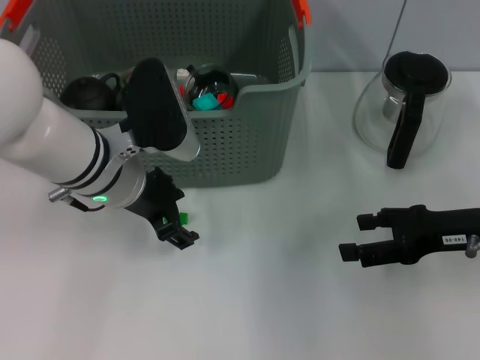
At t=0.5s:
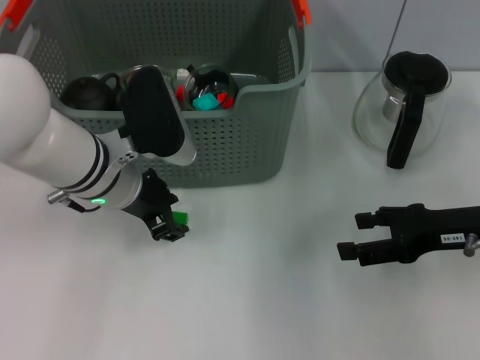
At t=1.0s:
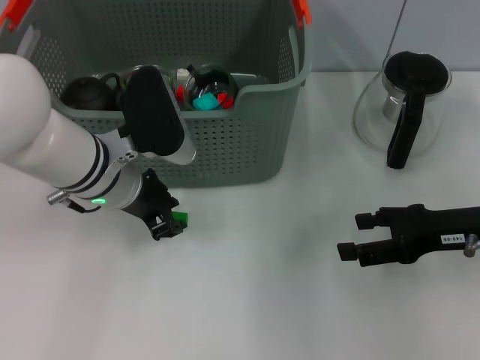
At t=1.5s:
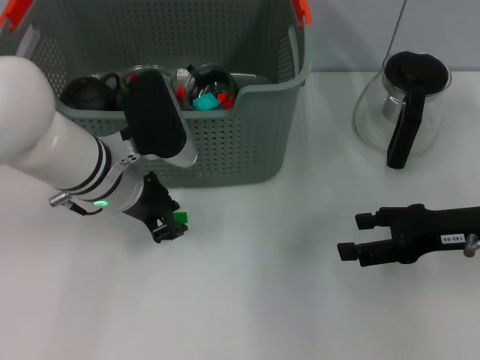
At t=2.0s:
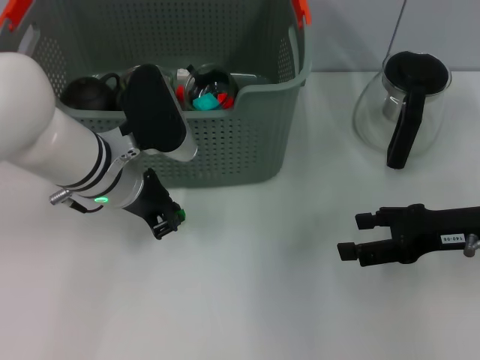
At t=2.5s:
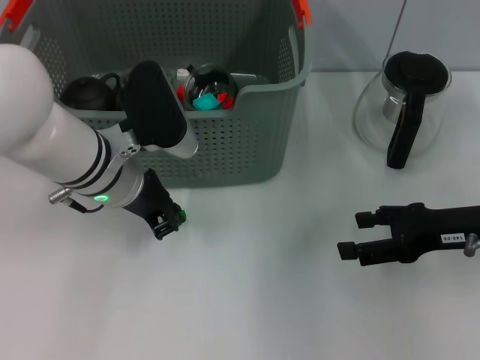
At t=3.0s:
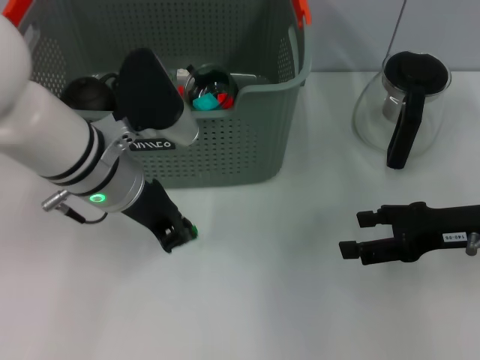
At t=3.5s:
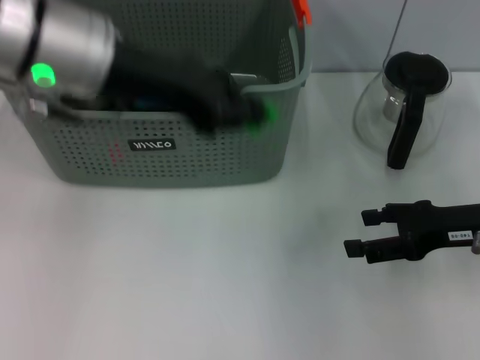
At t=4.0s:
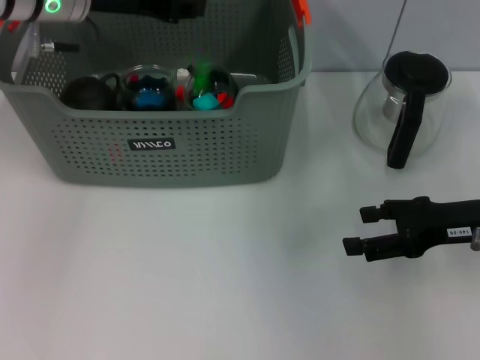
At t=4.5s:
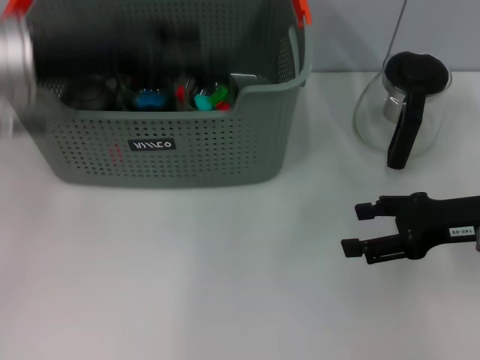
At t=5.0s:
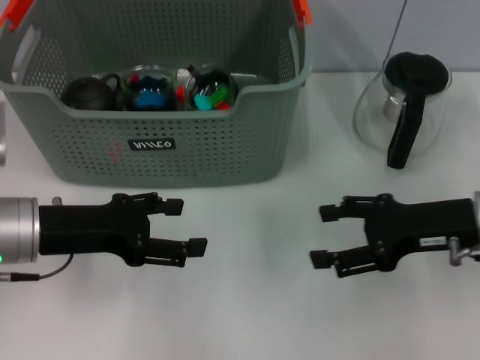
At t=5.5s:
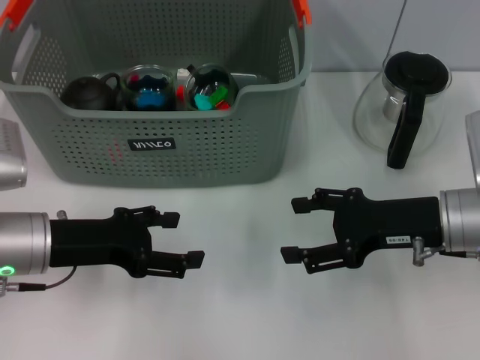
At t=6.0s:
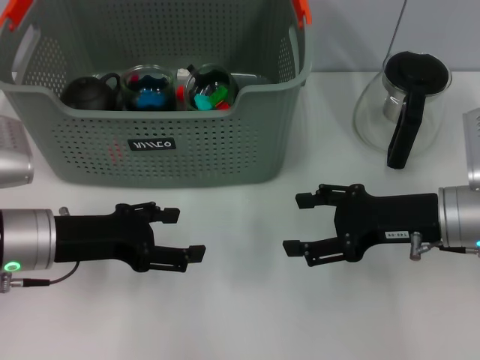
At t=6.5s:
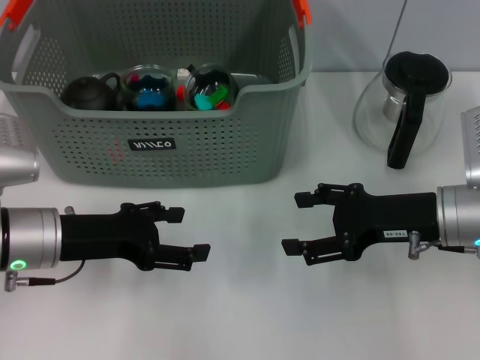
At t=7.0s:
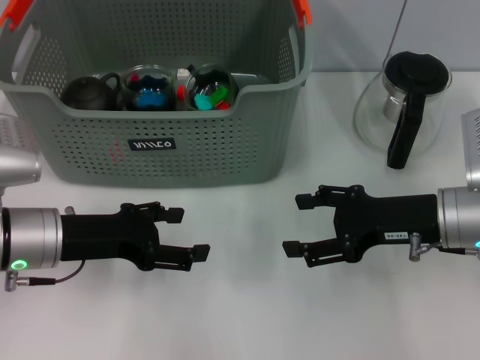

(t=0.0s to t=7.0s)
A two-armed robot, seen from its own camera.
Task of the whole recording: pick up the teacup on the table and place it into the storage bin, pick up the block on the table and place it into the storage bin.
Step, t=0.0s - t=2.5s: Grasp the green block with left gripper.
Step, t=3.0s - t=4.0s: Place the green block in the storage box with left gripper.
t=0.0s - t=2.0s: The left gripper closes.
t=2.0s - t=3.5s: The left gripper shifts about 15 cm upward.
t=3.5s - t=5.0s: The left gripper is displaced downward and to the left by approximately 20 cm, and opens its fingers.
t=5.0s - t=7.0s: There are only small adjustments of the grippers.
